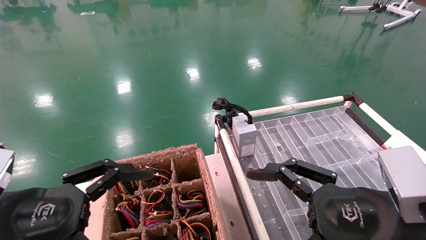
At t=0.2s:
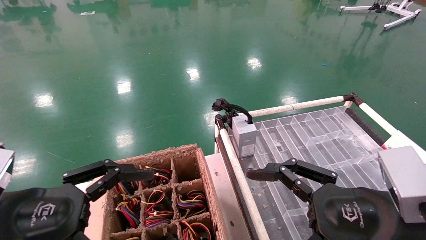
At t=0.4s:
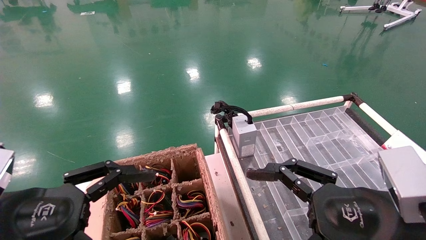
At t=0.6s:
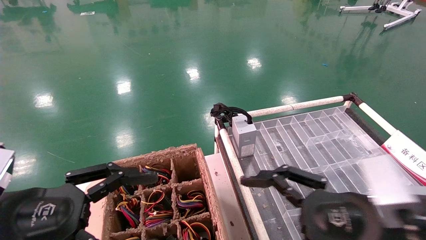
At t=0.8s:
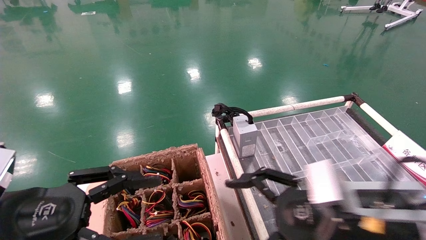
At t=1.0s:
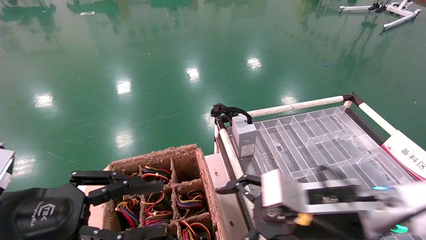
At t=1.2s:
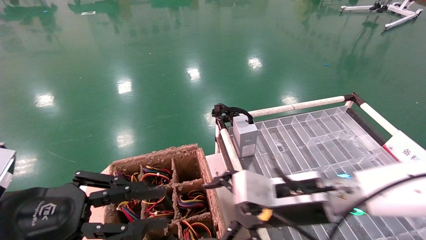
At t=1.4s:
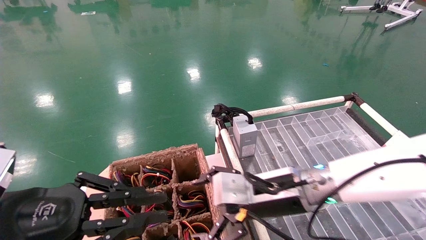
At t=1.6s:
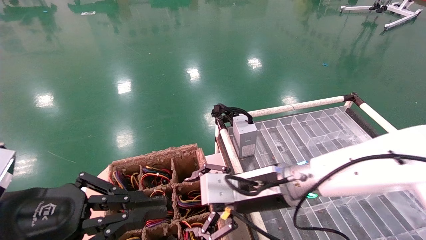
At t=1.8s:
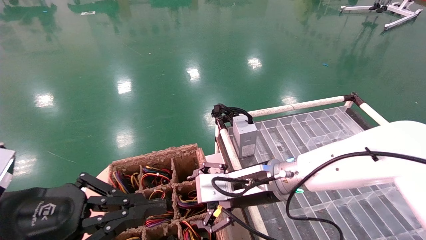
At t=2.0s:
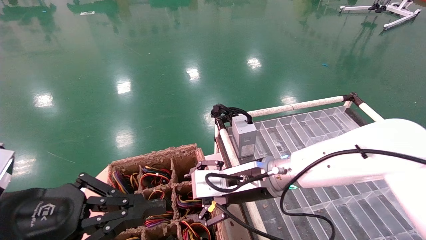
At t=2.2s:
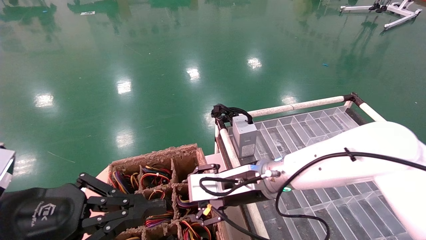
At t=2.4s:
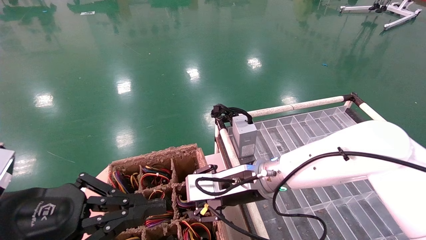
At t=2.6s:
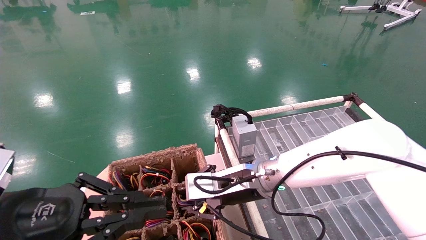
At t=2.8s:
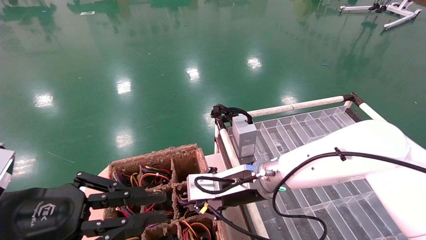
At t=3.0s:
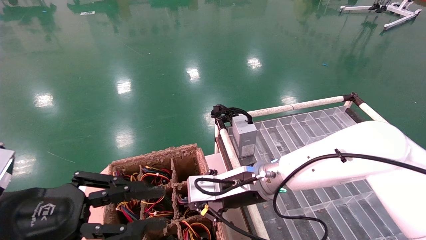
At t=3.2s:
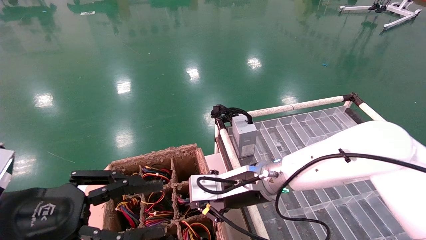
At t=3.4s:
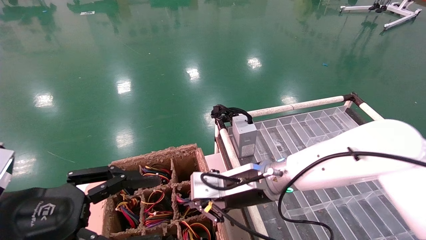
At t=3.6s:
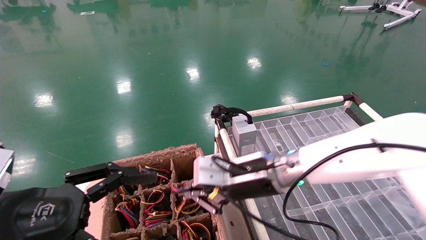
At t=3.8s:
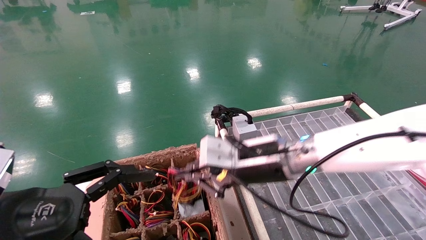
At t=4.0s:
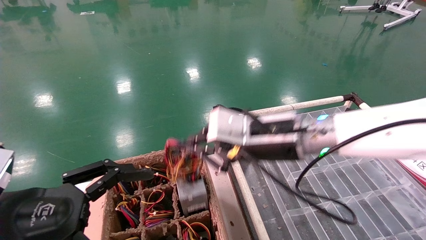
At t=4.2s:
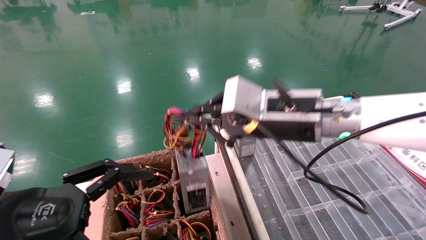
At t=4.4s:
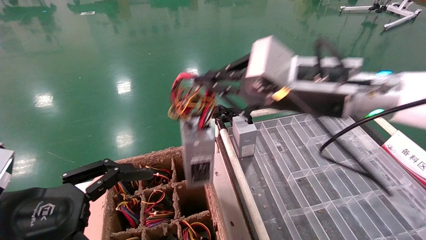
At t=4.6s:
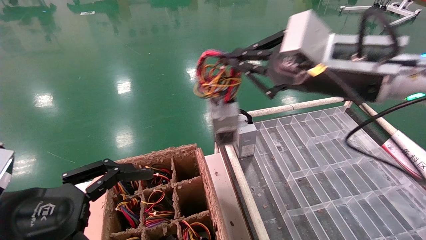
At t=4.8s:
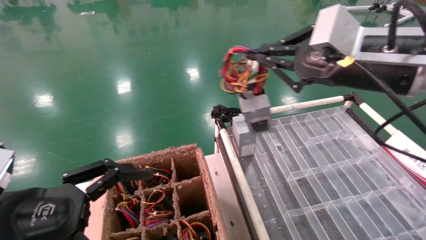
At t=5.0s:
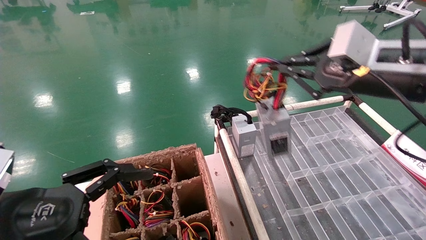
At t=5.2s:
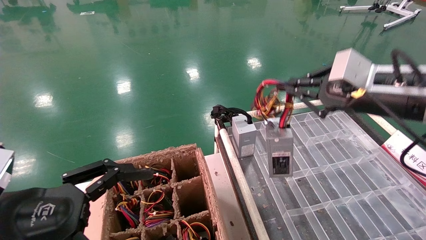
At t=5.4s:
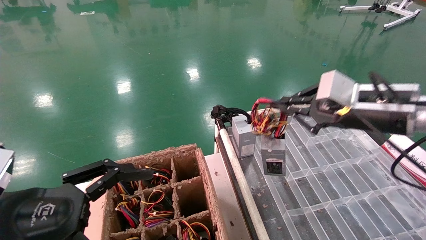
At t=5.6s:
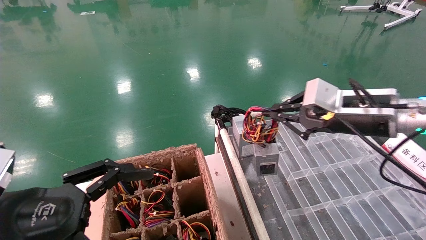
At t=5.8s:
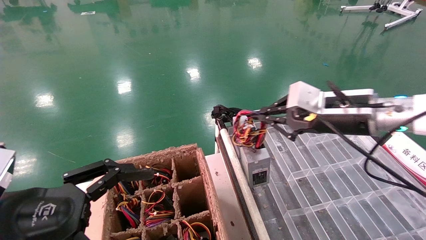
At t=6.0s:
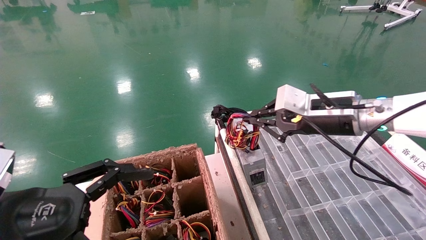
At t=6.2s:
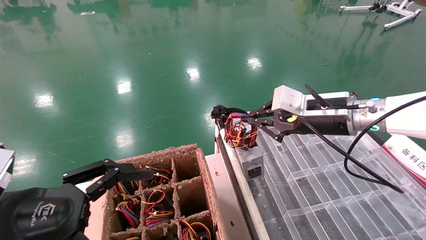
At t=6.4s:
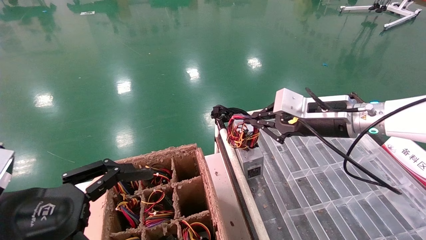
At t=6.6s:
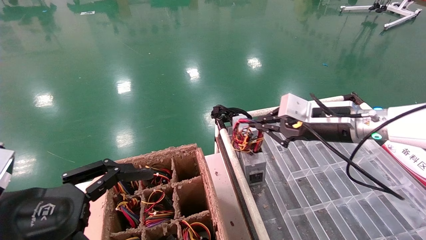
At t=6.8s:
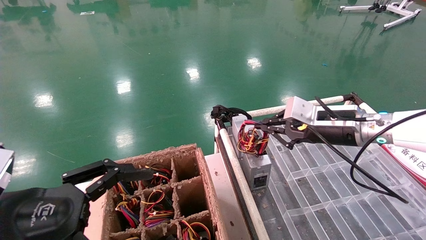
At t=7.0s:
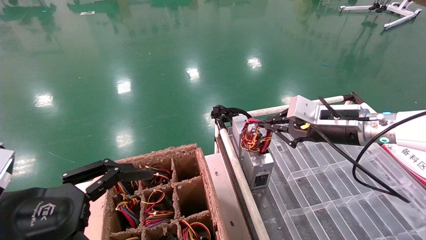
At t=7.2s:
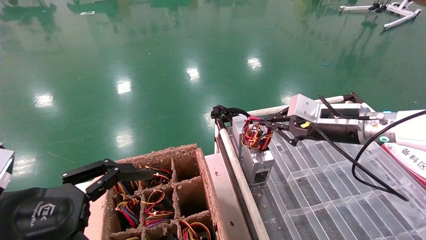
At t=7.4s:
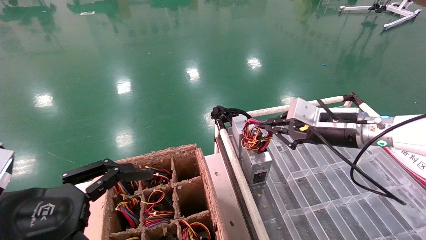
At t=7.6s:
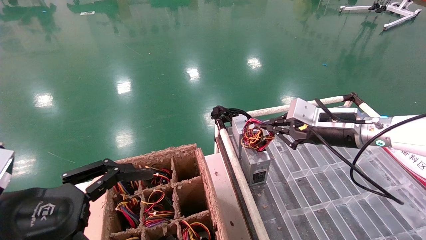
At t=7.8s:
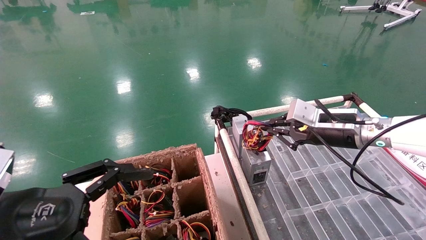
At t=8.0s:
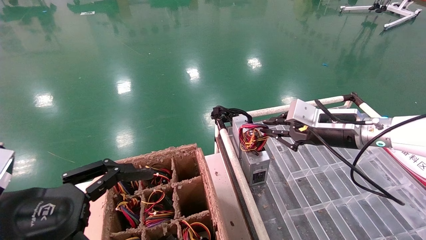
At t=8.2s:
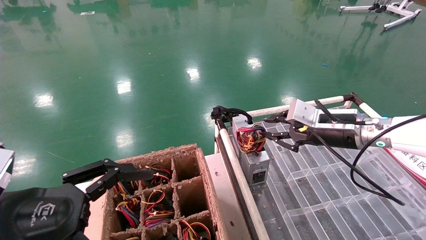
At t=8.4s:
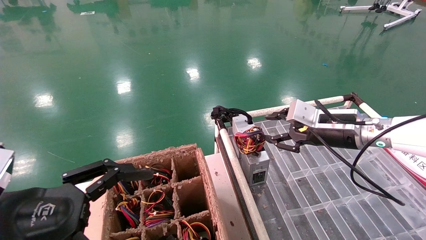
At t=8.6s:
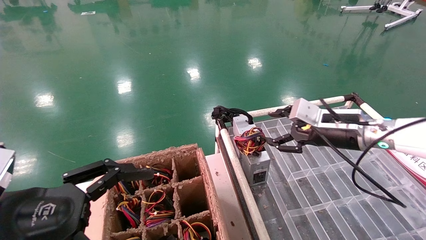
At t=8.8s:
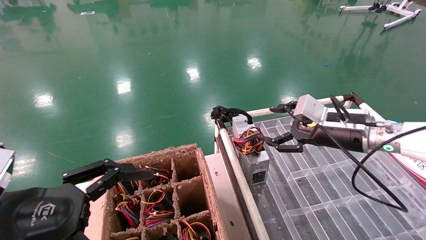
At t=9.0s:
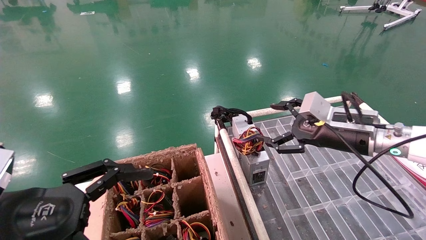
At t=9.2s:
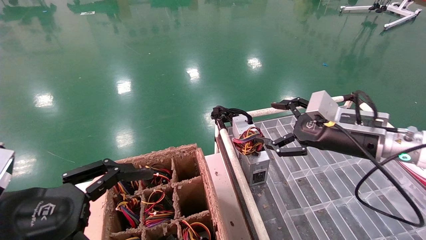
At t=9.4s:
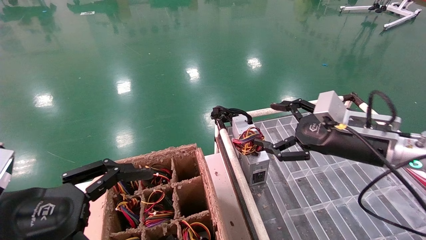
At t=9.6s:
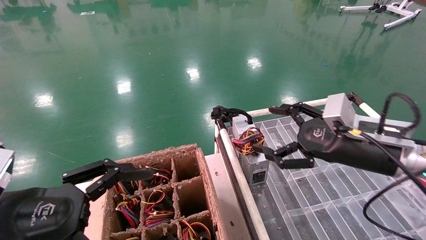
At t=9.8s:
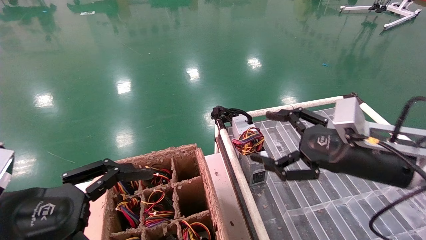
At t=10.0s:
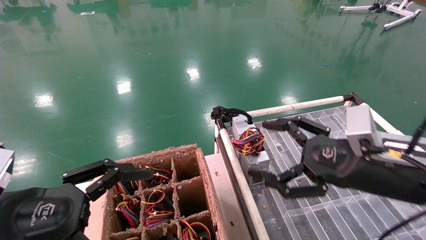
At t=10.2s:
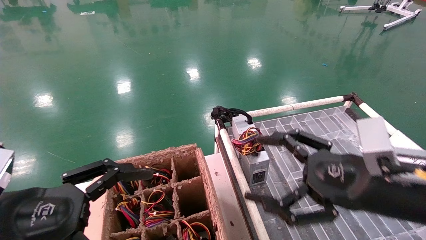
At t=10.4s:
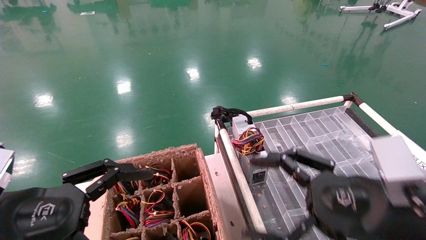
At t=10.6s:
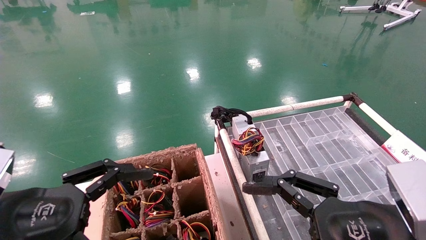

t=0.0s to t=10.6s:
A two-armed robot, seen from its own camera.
Step, t=0.8s to t=3.2s: Grab and lift the power supply from the large box.
Step, t=3.4s to t=8.0s: Place the power supply on the operating table.
t=0.0s to t=1.6s: The left gripper closes its fingers. Meanwhile the right gripper heads forward and to the left, covering about 20 cm.
t=1.6s to t=3.0s: The right gripper closes its fingers.
t=3.0s to t=4.6s: The right gripper shifts roughly 25 cm upward, to the right and backward, while the left gripper opens.
t=4.6s to t=6.0s: The right gripper goes about 10 cm forward and downward.
t=6.0s to t=7.6s: The right gripper changes place by roughly 5 cm.
t=7.6s to t=9.0s: The right gripper opens its fingers.
t=9.0s to t=10.6s: The right gripper heads backward, covering roughly 20 cm.
